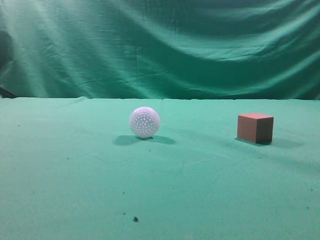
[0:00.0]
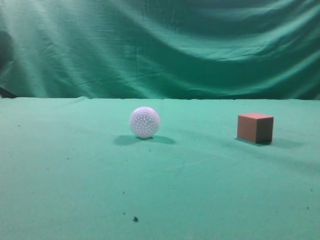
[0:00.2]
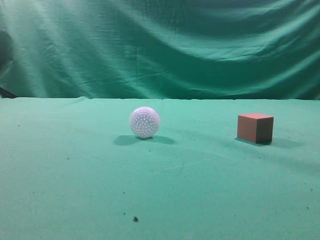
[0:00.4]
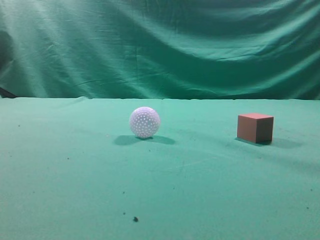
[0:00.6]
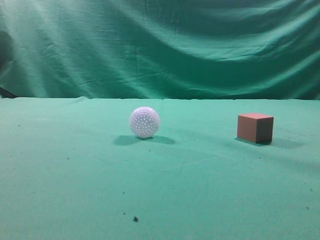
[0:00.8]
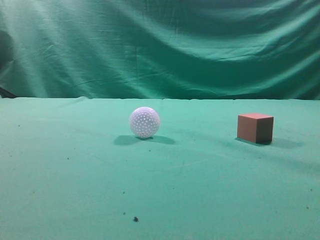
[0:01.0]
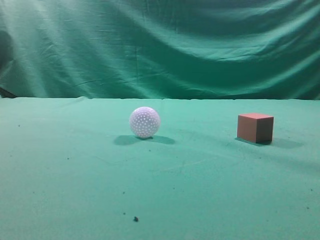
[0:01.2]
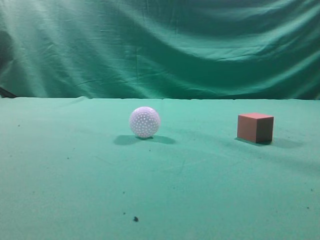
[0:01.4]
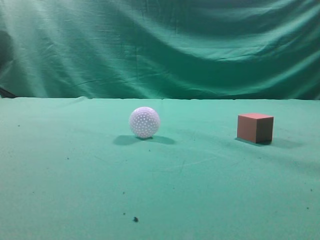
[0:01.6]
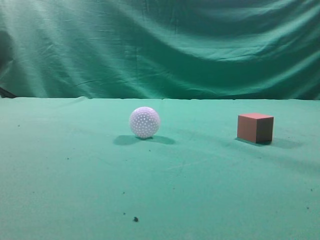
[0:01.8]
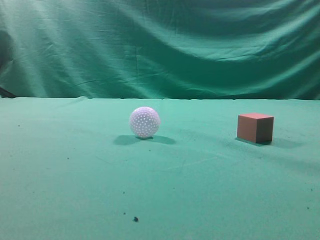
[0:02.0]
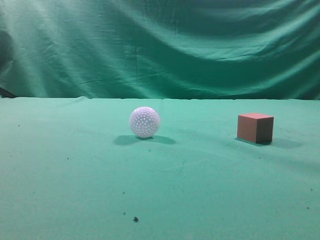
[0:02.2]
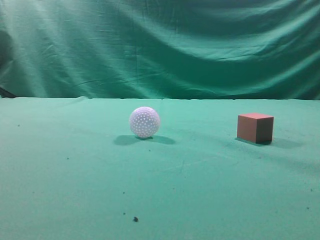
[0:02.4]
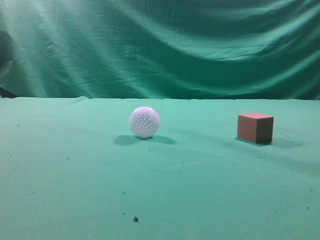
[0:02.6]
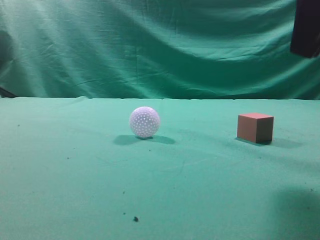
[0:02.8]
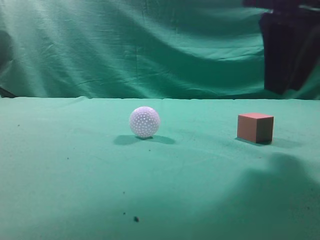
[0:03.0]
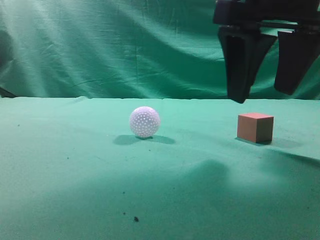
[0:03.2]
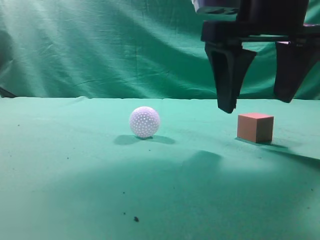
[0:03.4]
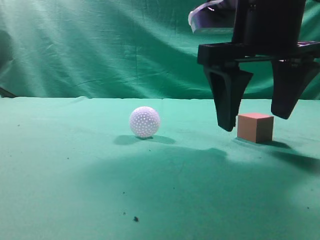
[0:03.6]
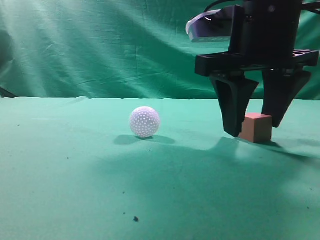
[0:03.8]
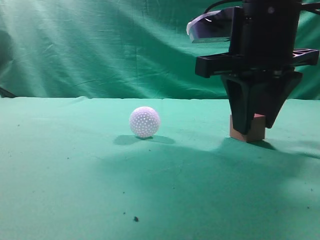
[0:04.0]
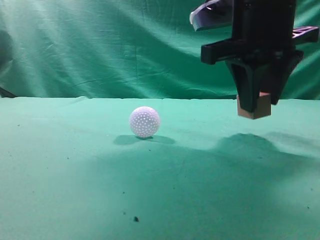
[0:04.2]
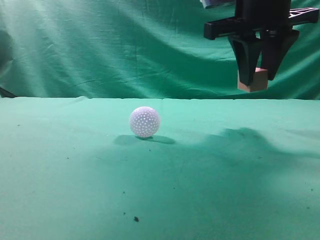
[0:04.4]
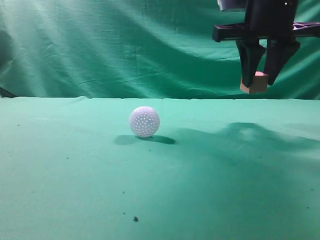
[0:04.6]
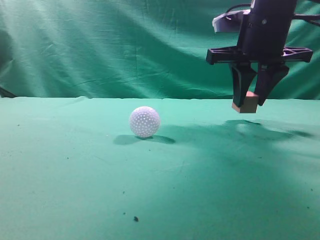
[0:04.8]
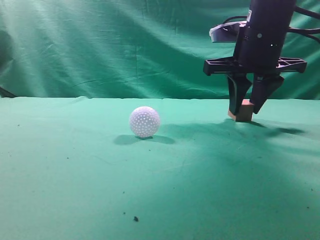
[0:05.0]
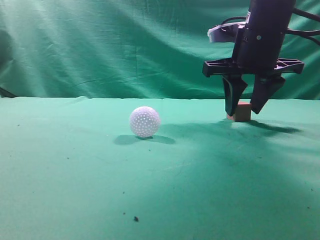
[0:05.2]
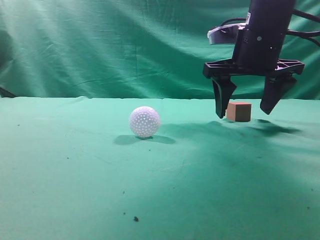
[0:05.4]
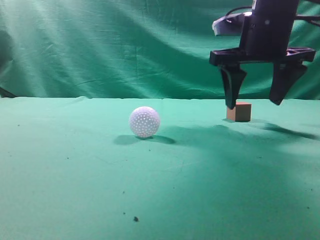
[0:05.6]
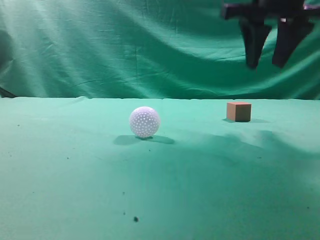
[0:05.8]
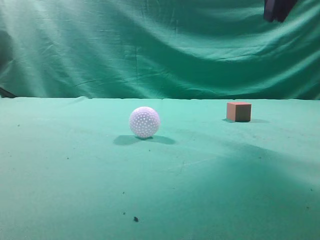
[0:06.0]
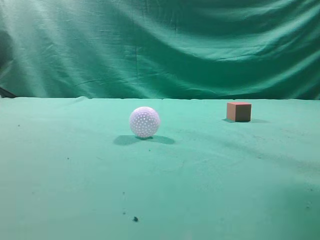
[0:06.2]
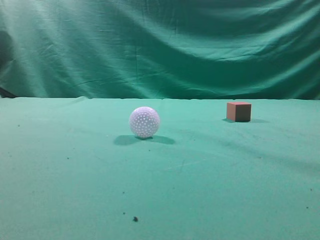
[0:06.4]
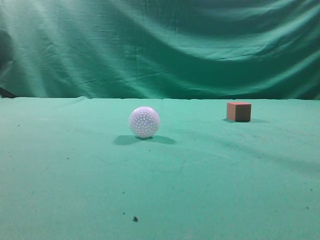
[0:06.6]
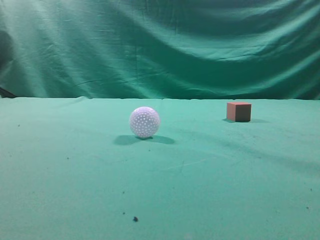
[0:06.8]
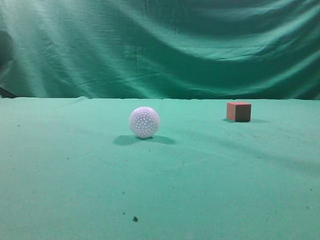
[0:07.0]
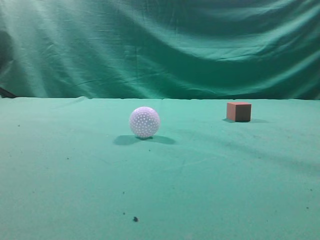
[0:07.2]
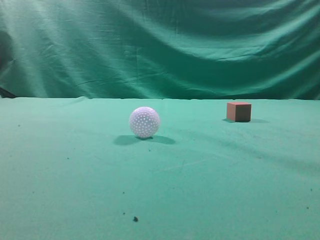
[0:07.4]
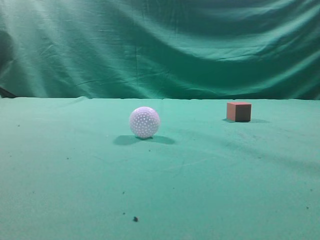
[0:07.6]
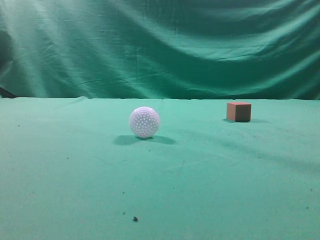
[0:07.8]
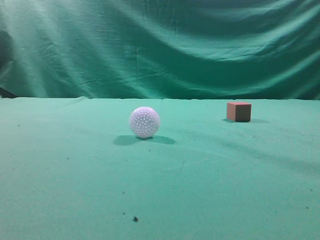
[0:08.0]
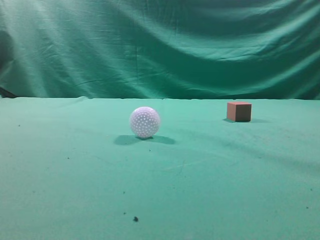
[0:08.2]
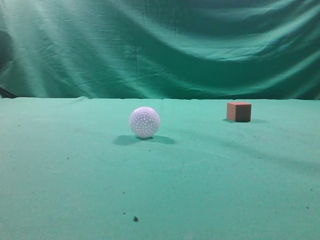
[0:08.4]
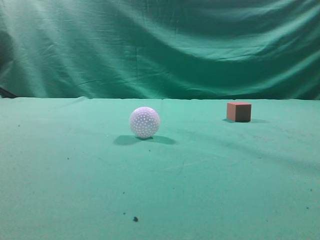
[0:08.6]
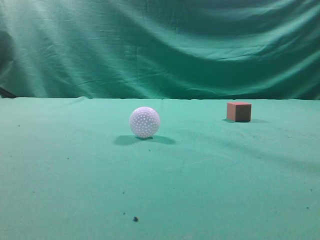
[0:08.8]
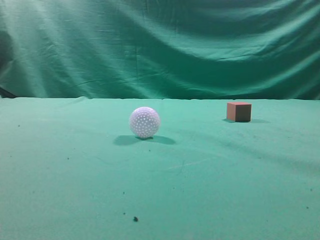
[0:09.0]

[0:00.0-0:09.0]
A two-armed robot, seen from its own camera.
Task of the whole recording: pick up the cube block and place it in another position on the table.
Step, 0:00.0 to 0:04.0: Pick up the small cube.
Step, 0:04.2 to 0:05.2: Place the small cube on the ahead of the table.
0:01.6 to 0:03.0: The right gripper is displaced forward and to the left by about 25 cm, and opens up.
0:03.0 to 0:04.4: The right gripper moves forward, roughly 10 cm, and opens and closes again.
0:04.4 to 0:06.0: The right gripper shifts some 10 cm upward, and closes its fingers.
0:06.0 to 0:07.6: The right gripper is displaced backward and to the right by roughly 20 cm.
